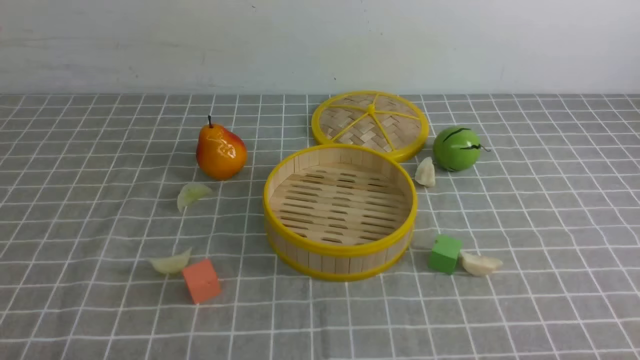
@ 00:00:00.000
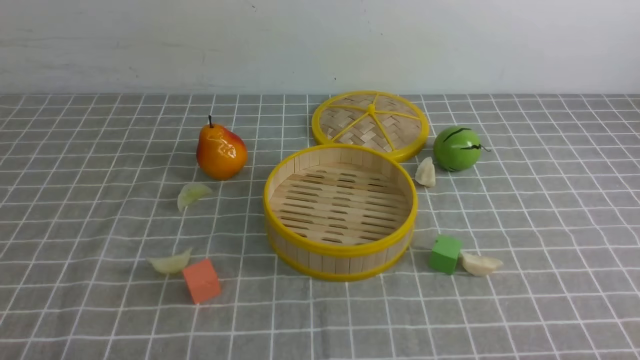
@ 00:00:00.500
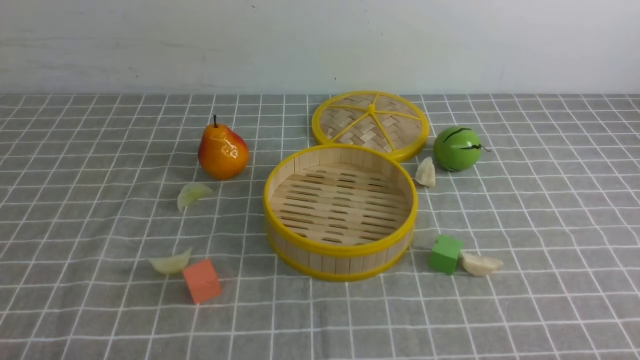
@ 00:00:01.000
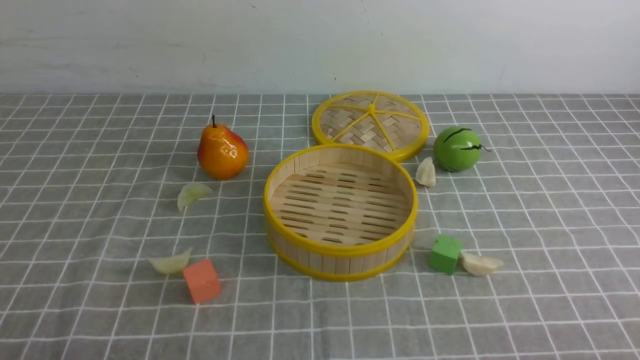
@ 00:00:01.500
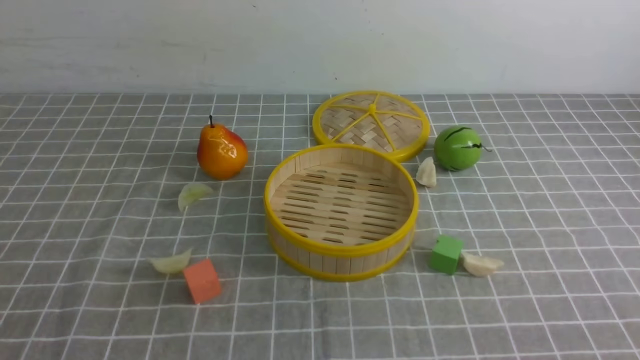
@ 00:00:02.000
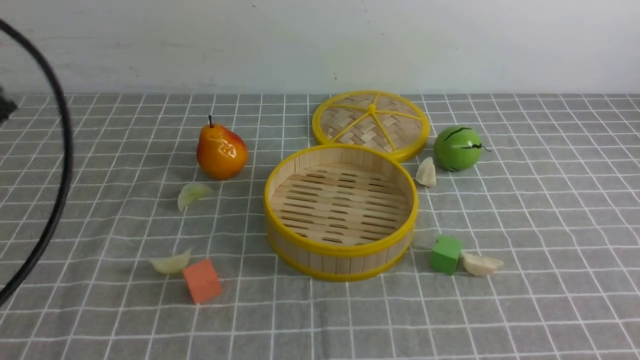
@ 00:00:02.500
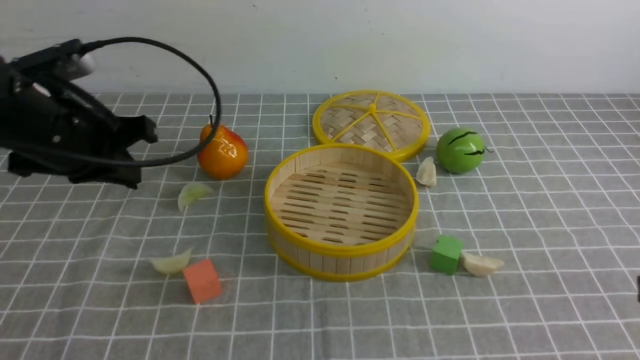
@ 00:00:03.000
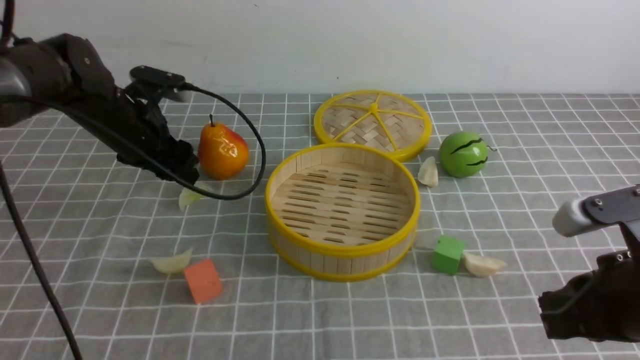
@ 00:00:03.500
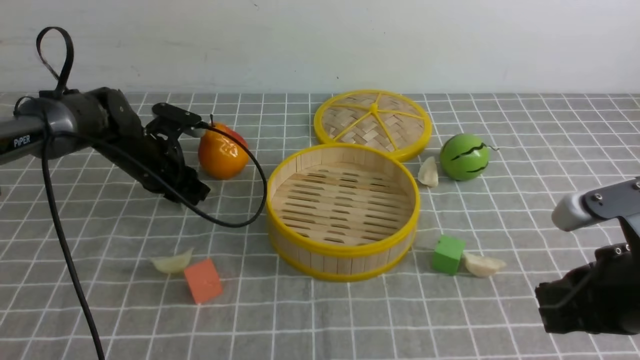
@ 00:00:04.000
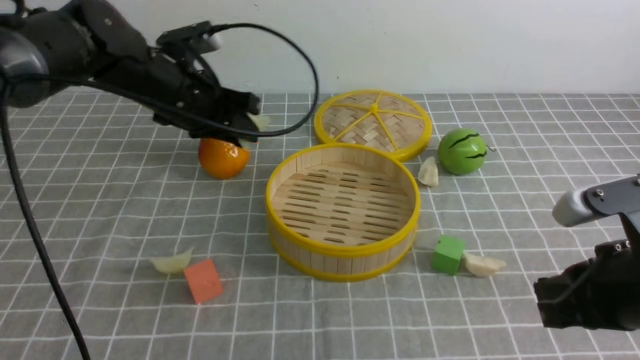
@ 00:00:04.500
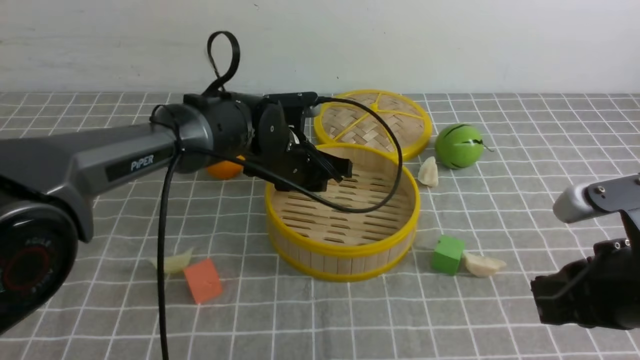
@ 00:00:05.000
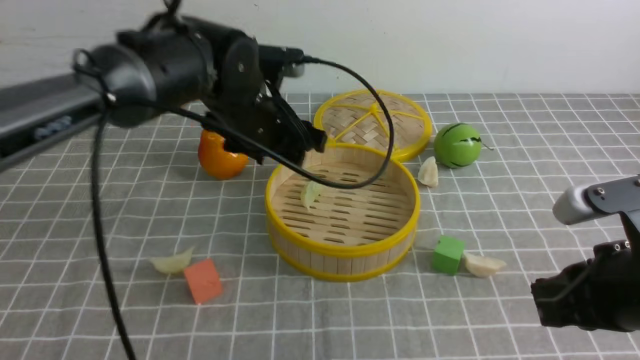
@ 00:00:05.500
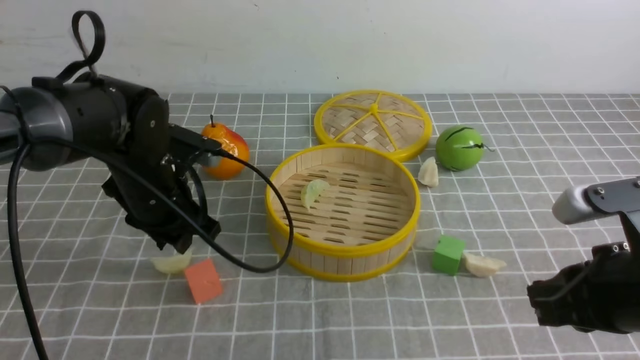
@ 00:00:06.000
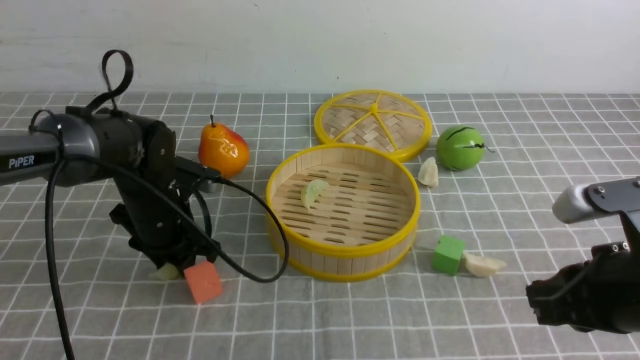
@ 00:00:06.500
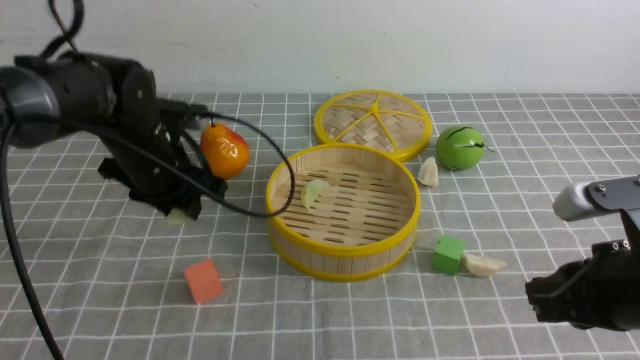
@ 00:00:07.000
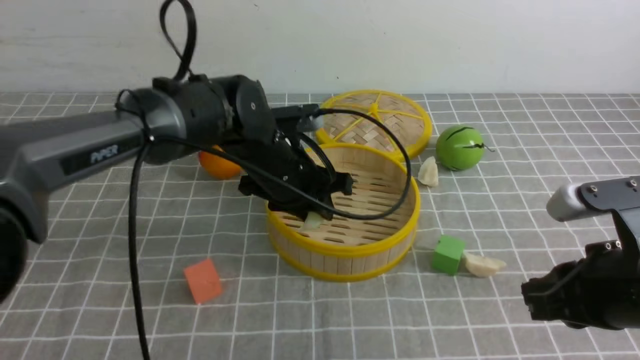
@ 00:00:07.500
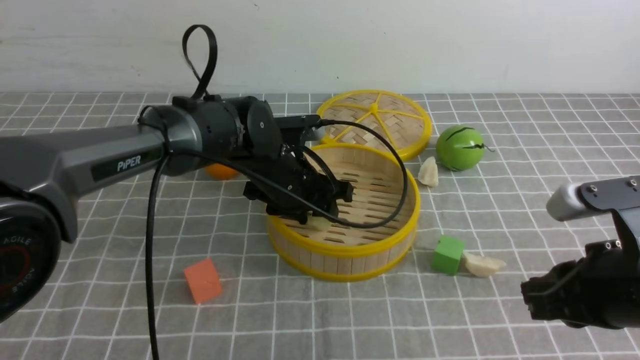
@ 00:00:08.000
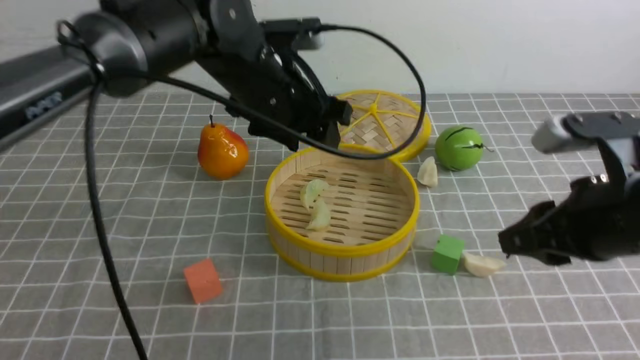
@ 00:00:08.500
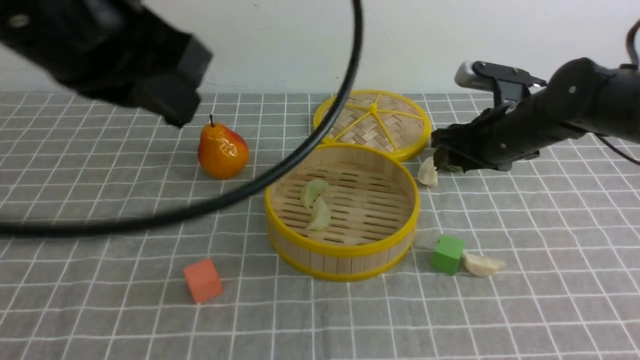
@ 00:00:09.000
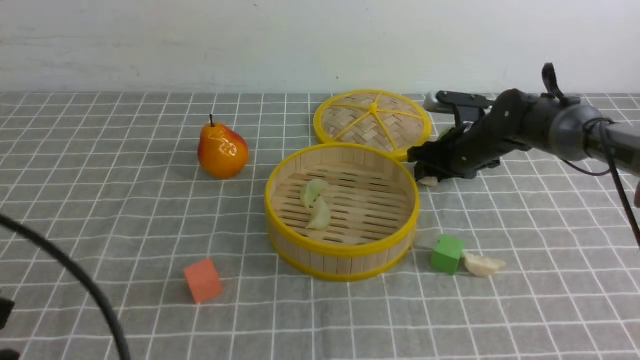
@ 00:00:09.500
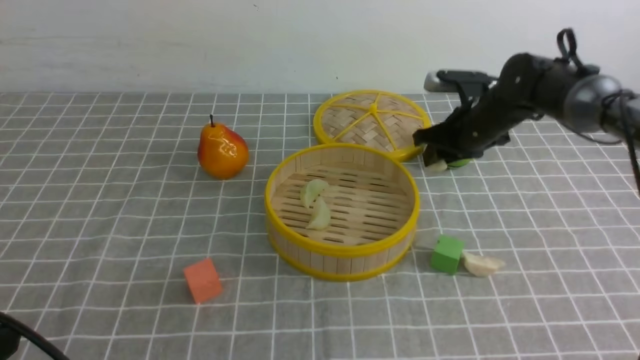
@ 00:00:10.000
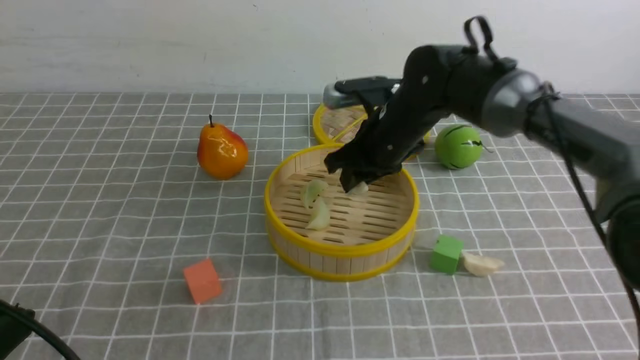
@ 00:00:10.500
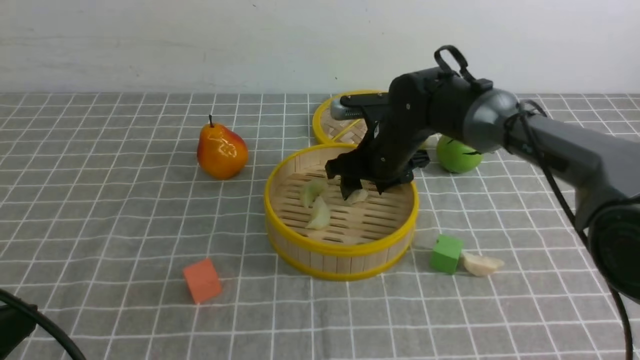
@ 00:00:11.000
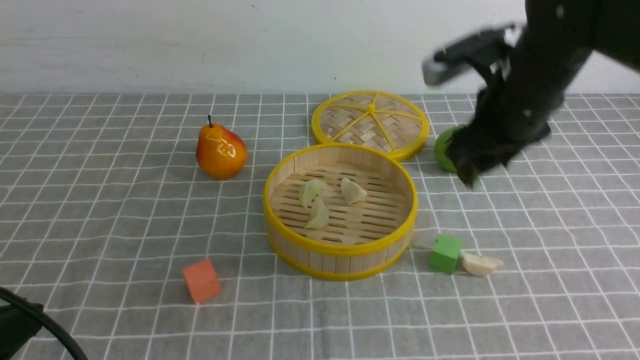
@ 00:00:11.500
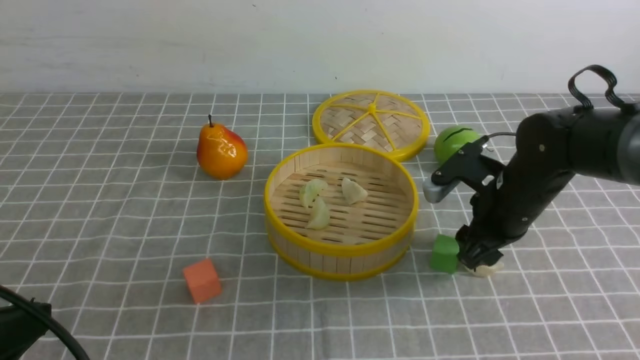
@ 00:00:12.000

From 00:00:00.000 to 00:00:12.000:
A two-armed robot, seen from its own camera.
Task of the whole recording: put the dumplings into the steamer on the table with the grey tablecloth.
Step, from 00:00:00.000 to 00:00:04.000: use the left arm to grab a dumpling.
Step, from 00:00:04.500 to 00:00:05.000: use the left arm to put the dumpling into the steamer.
Step, from 00:00:05.500 to 00:00:06.500: use the left arm to grab a dumpling.
Step, from 00:00:07.000 to 00:00:08.000: use the left arm to put the dumpling into the steamer.
Step, from 00:00:08.500 to 00:00:09.500: use the right arm to grab a dumpling.
Step, from 00:00:10.000 to 00:00:11.000: use the right arm to put the dumpling into the steamer.
From 00:00:02.000 to 00:00:04.000: The left gripper heads forward, covering roughly 40 cm, and opens, then closes once more, while the right gripper moves forward, some 15 cm, and closes.
From 00:00:04.000 to 00:00:06.000: The left gripper is displaced backward by some 10 cm, travels to the right and back again, some 20 cm each way, and opens, then closes again.
From 00:00:06.000 to 00:00:08.000: The left gripper moves to the right, approximately 10 cm.
From 00:00:08.000 to 00:00:10.000: The right gripper moves forward, approximately 30 cm. Meanwhile the left gripper travels backward and to the left by approximately 40 cm, and closes.
From 00:00:10.000 to 00:00:12.000: The right gripper moves backward, roughly 15 cm, and opens.

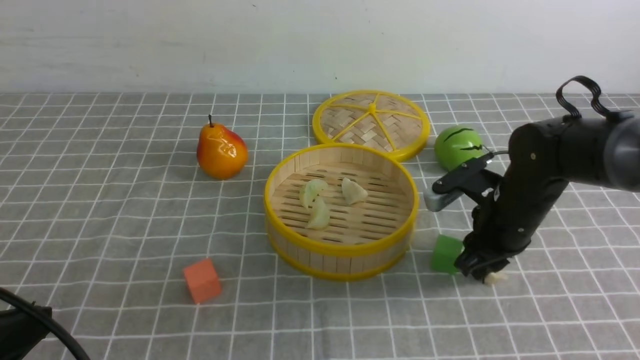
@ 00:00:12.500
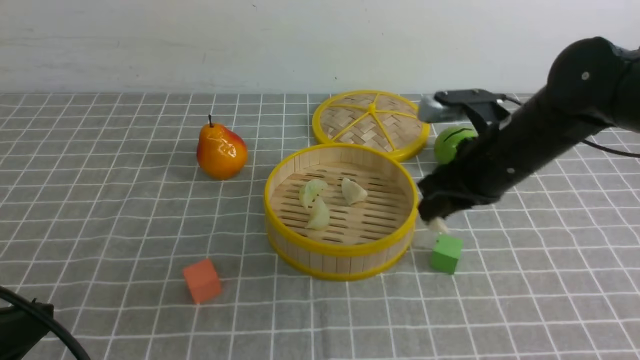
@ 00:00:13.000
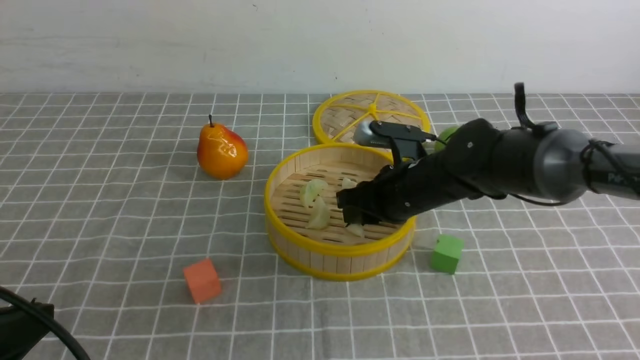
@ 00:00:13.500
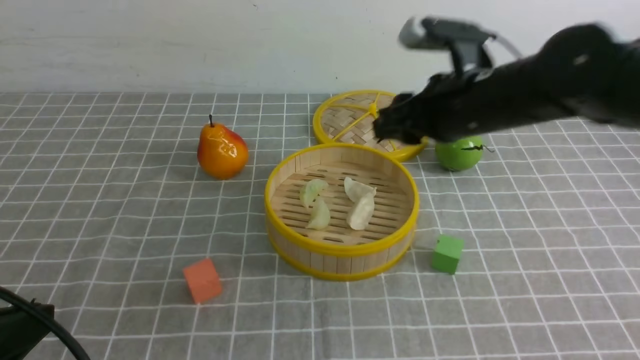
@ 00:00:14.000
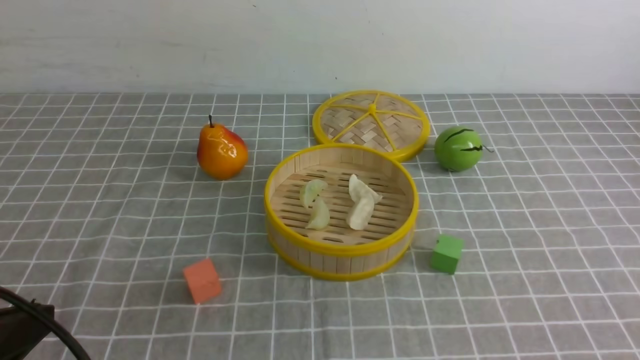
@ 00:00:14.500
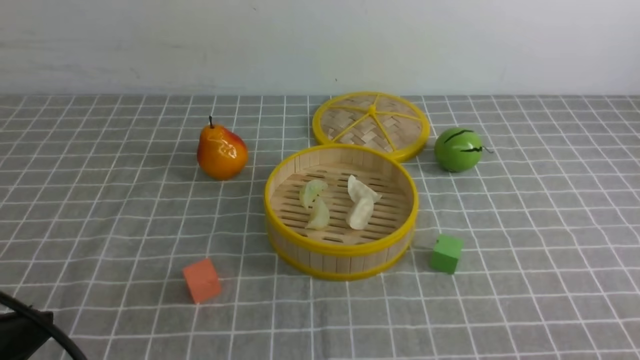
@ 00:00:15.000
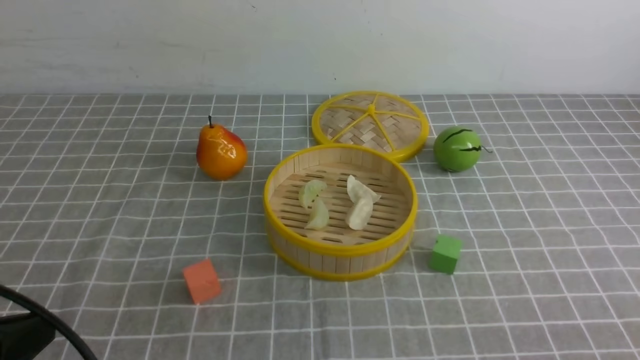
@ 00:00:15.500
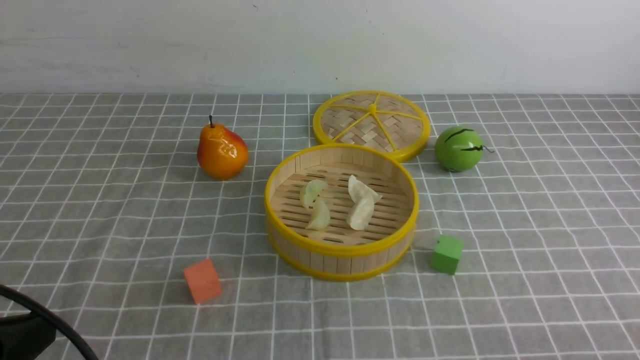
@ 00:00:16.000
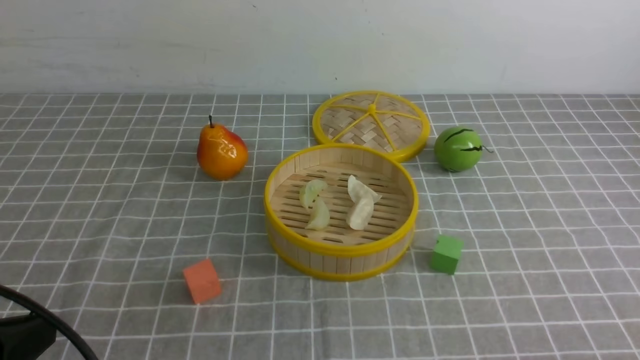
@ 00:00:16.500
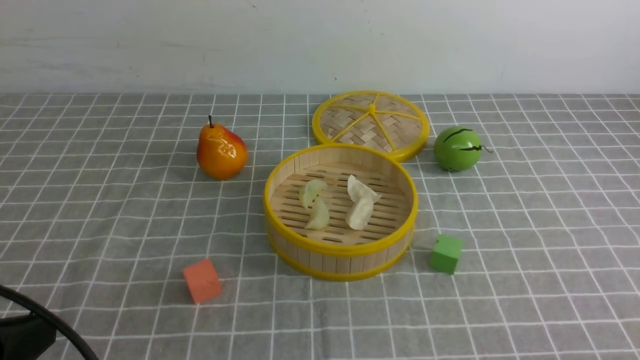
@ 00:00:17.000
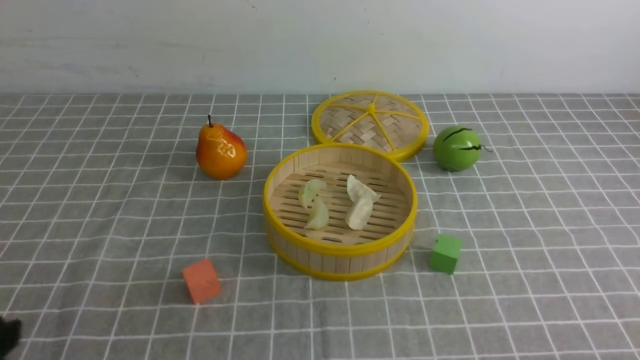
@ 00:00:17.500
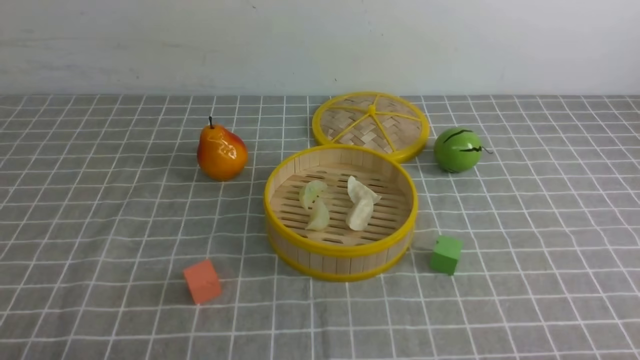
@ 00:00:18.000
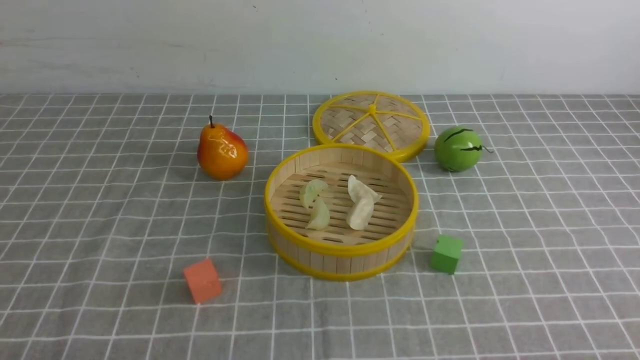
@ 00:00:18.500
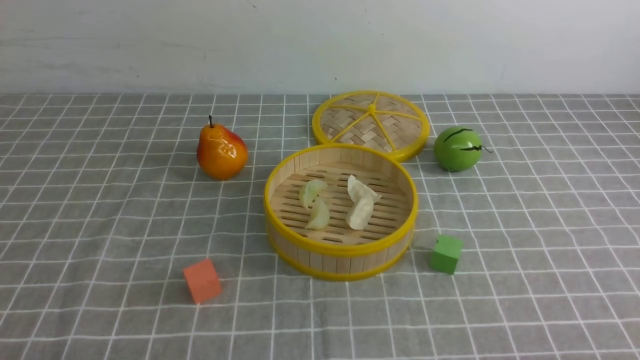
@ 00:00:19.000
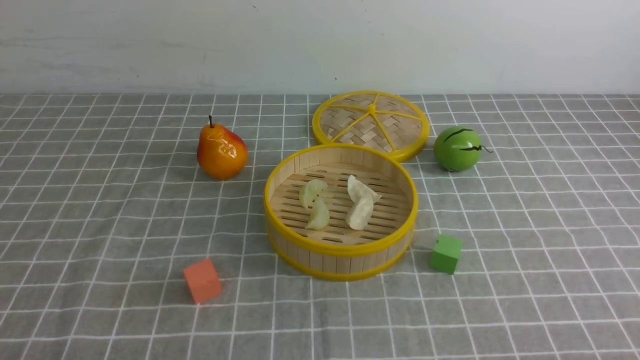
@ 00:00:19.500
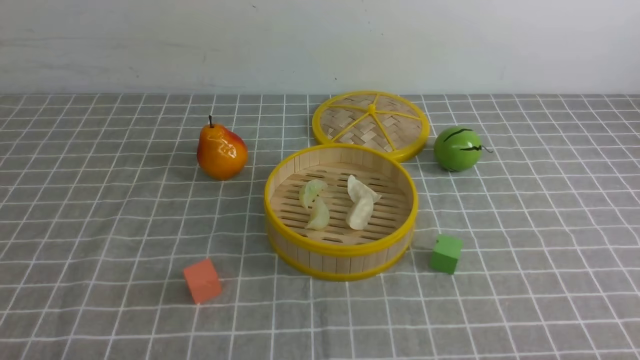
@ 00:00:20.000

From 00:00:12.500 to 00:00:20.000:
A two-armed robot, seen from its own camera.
Task of the whole recording: put the dumplings into the steamer on the table with the grey tablecloth.
Step, from 00:00:13.000 to 00:00:13.500: use the right arm to put the dumpling into the steamer.
From 00:00:12.500 to 00:00:14.500: The right gripper moves backward and upward, approximately 35 cm, and closes up.
From 00:00:16.500 to 00:00:18.000: The left gripper heads downward, covering about 5 cm.
